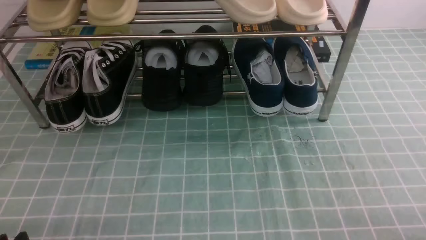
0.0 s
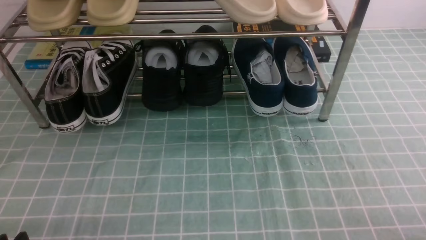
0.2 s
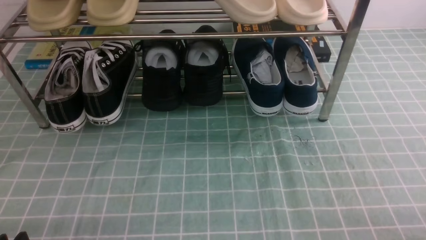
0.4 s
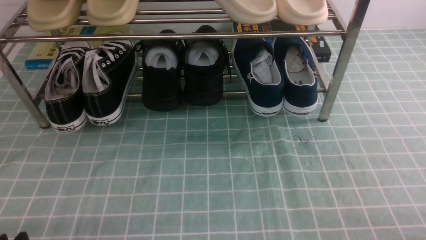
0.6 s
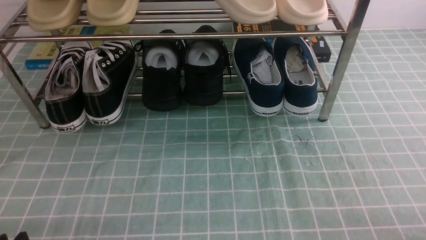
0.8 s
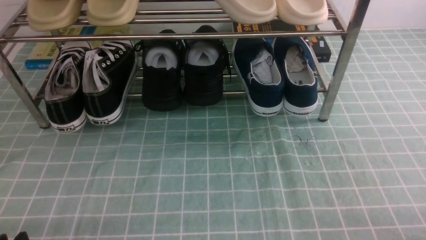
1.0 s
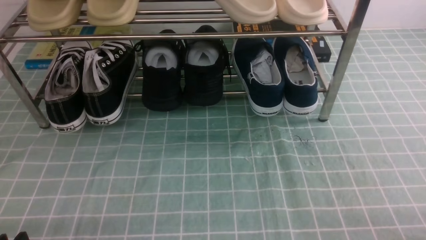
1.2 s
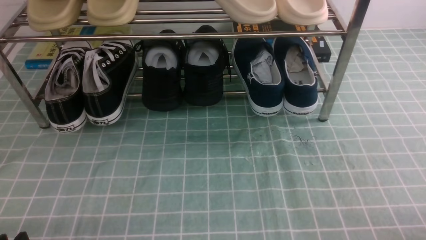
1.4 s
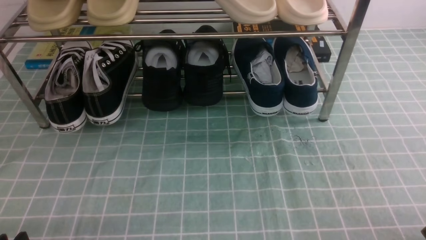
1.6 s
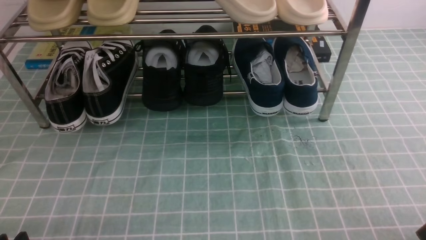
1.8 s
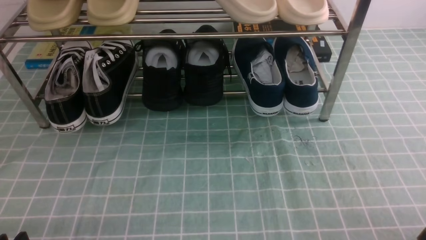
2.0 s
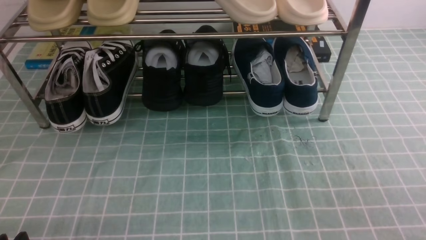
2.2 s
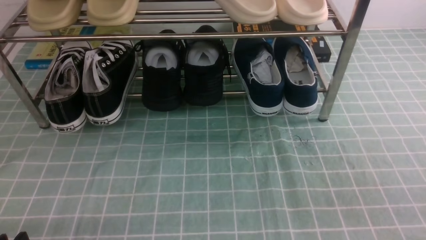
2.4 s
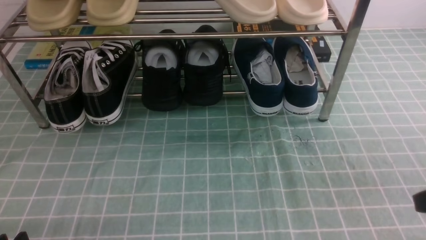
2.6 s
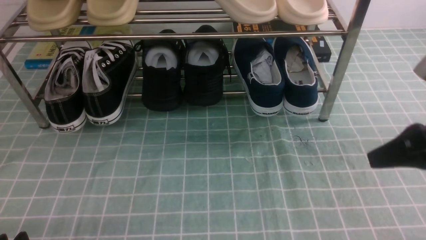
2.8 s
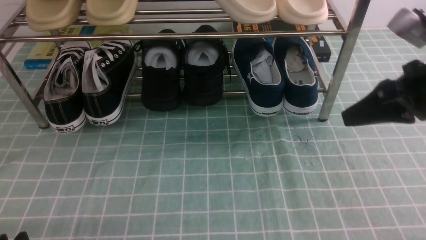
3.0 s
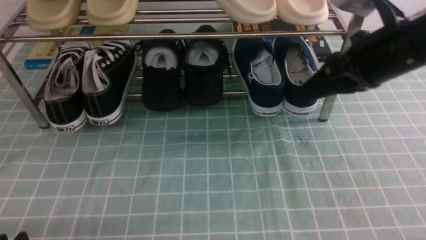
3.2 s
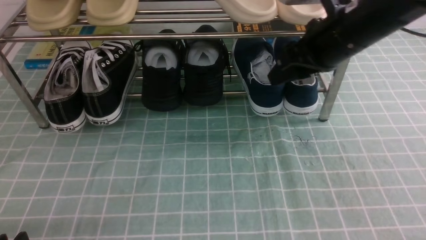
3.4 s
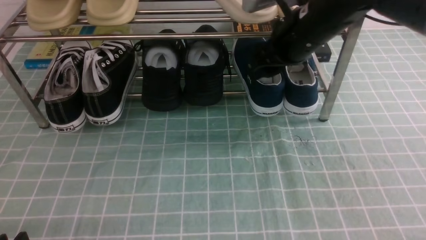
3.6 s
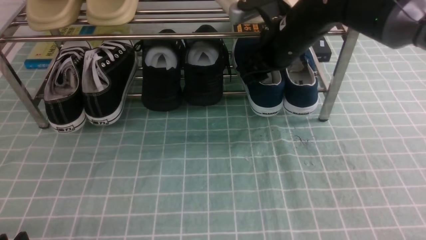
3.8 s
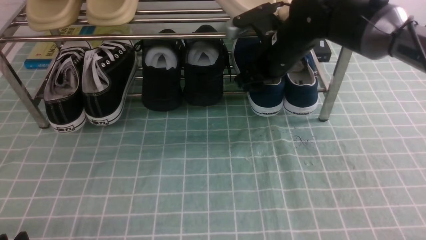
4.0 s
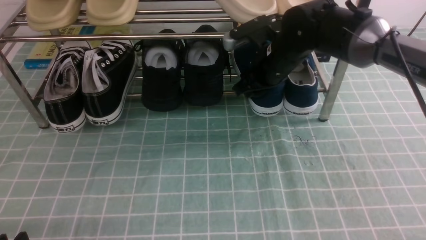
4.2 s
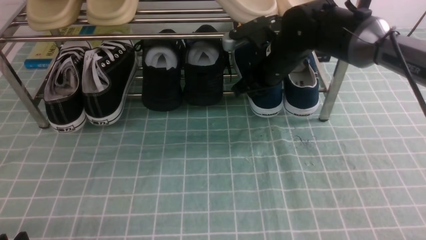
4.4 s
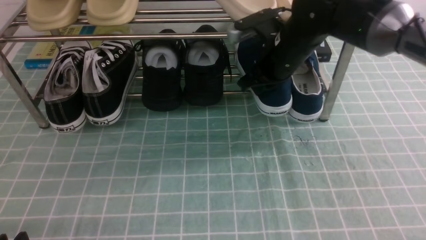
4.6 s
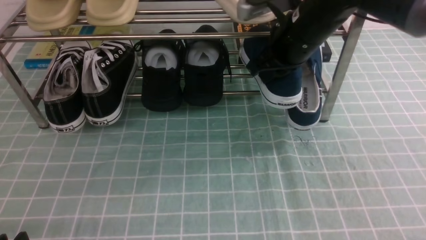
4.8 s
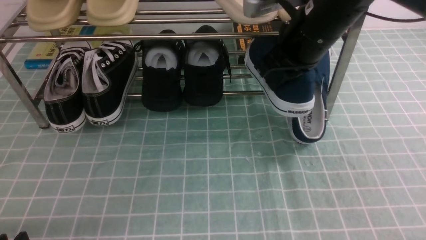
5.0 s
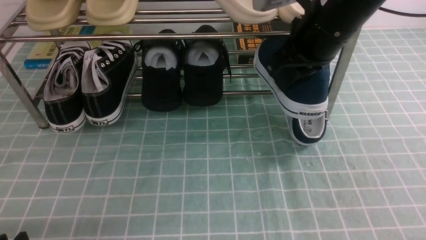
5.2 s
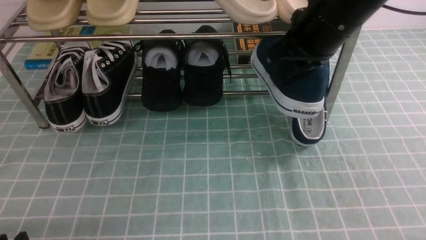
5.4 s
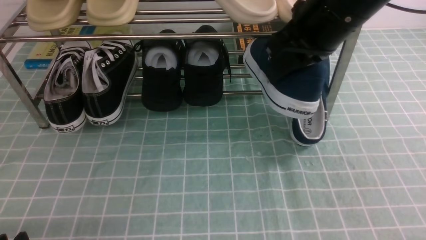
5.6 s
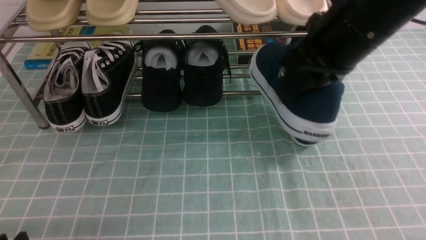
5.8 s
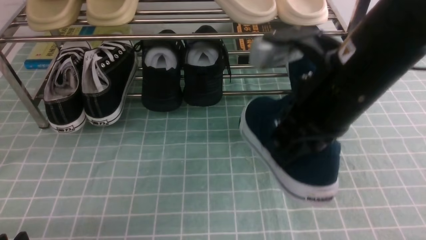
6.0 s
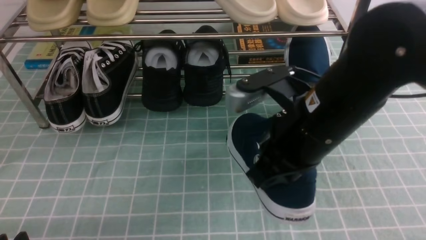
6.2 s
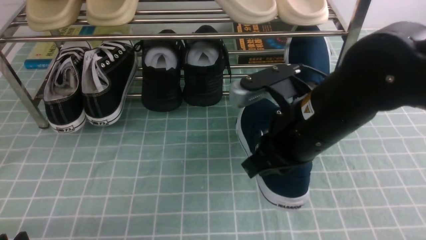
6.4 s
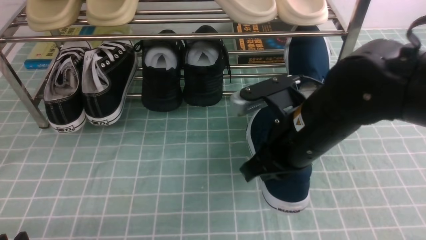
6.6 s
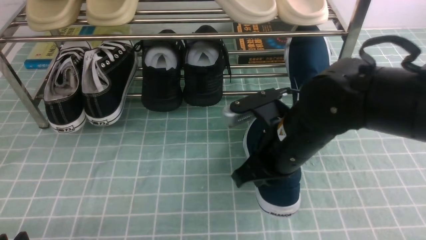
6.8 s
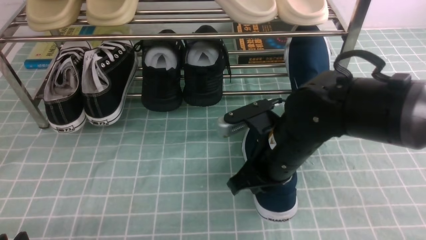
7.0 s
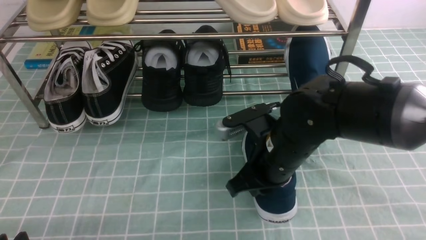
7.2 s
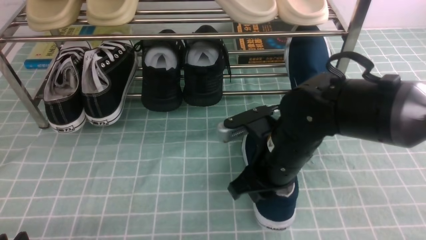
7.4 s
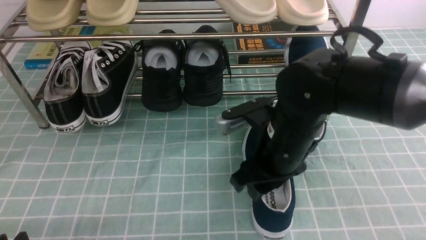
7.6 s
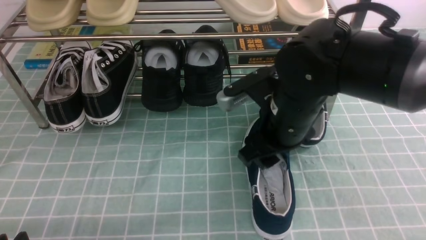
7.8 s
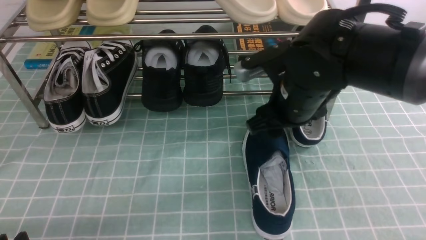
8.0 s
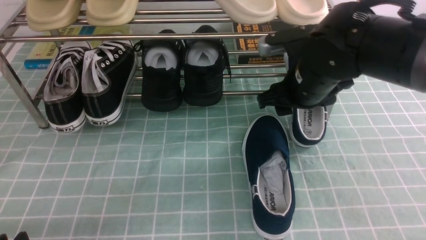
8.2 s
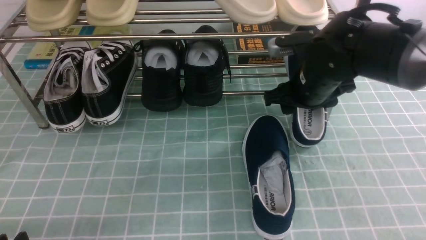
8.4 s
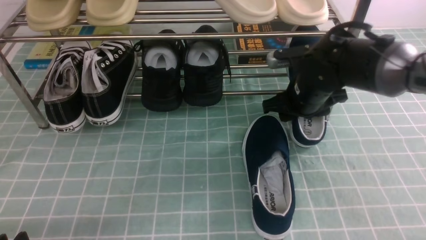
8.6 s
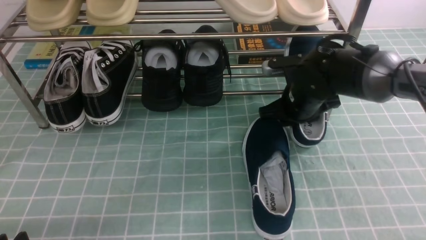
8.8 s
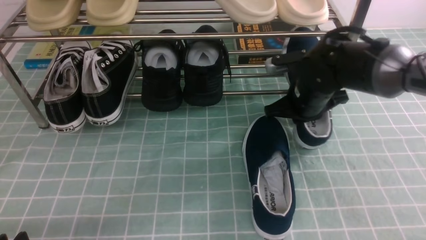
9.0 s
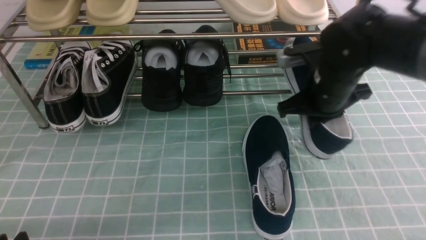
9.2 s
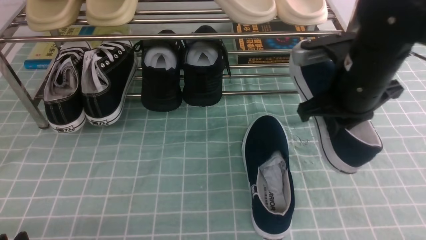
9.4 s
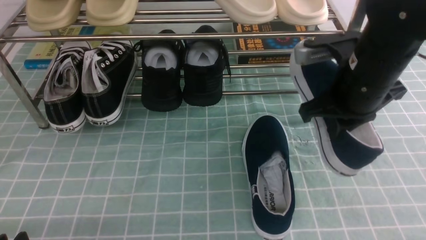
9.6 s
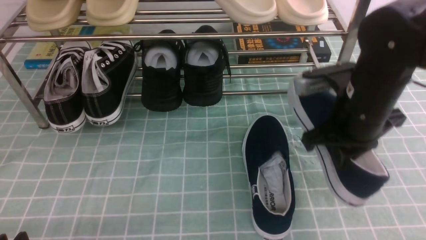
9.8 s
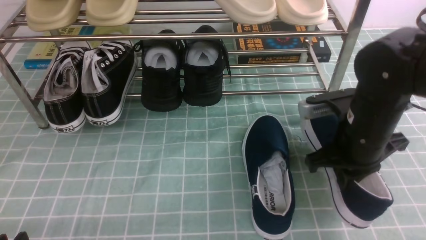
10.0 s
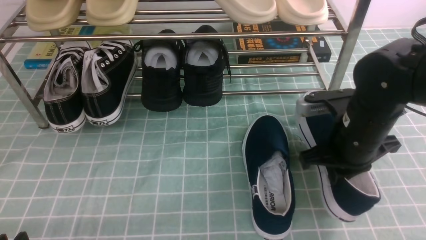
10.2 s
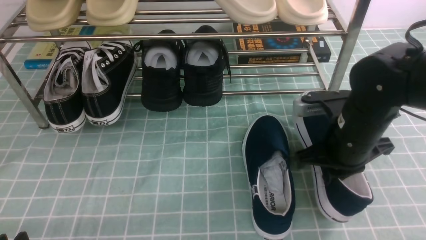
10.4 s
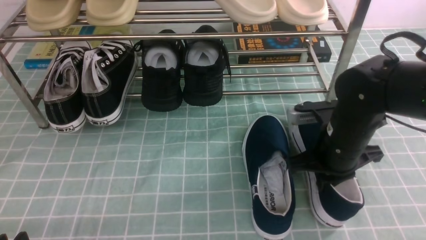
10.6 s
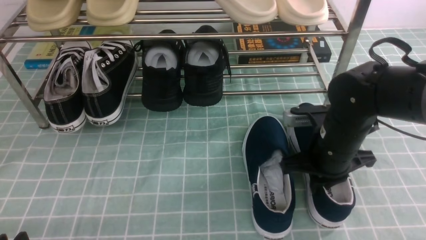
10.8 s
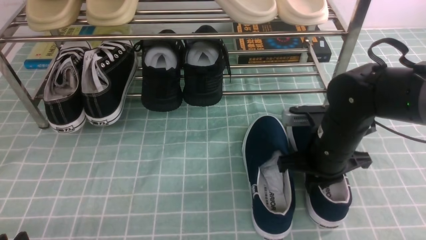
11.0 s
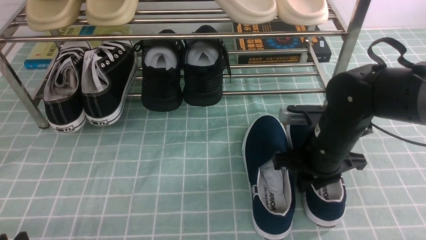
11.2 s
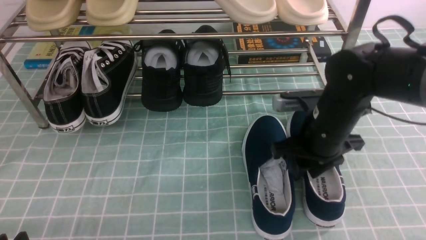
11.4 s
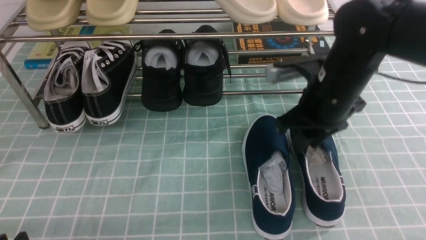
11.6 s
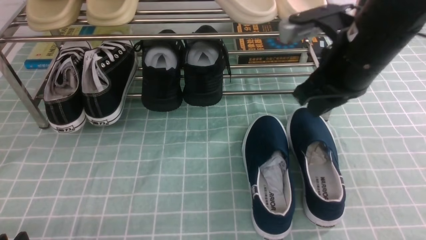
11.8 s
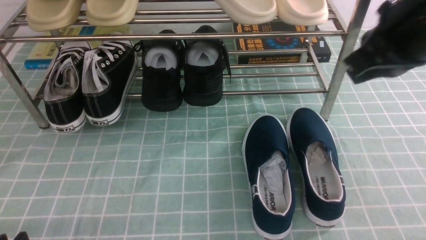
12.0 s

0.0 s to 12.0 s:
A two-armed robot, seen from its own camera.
Step, 0.0 to 4.2 s: use the right arm to clamp a shoe on the right side of the shoe rack.
Step, 4.4 to 7.6 s: use the right arm to take out the clamped shoe from the shoe rack and put it down.
Step, 7.8 to 8.8 s: use the right arm to clamp a shoe on the right side of the shoe rack.
Step, 9.0 to 11.6 s: use the right arm to take out the clamped shoe from the shoe rack and put it down.
1.6 to 3.0 s: The right gripper goes about 25 cm forward and upward.
3.0 to 4.4 s: The right gripper is displaced forward, to the left and downward by approximately 20 cm, and opens, then closes again.
4.4 to 6.0 s: The right gripper is displaced backward and upward by roughly 20 cm.
6.0 to 7.6 s: The right gripper goes about 10 cm downward, and opens.
7.6 to 9.0 s: The right gripper is displaced forward and to the right by about 10 cm, and closes.
9.0 to 10.4 s: The right gripper goes some 10 cm backward.
10.4 to 12.0 s: The right gripper travels upward by roughly 20 cm, and opens, then closes again.

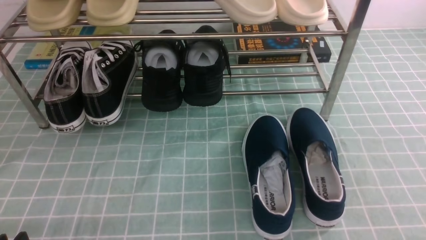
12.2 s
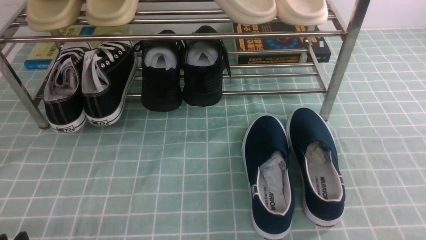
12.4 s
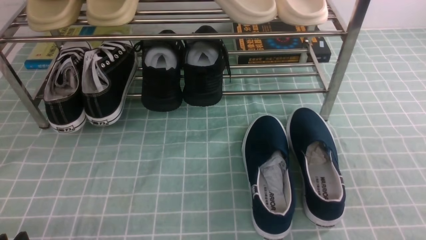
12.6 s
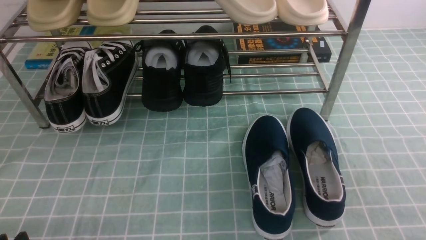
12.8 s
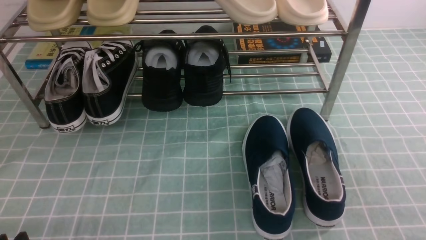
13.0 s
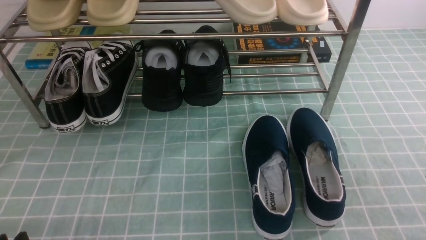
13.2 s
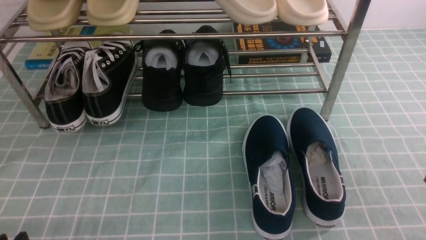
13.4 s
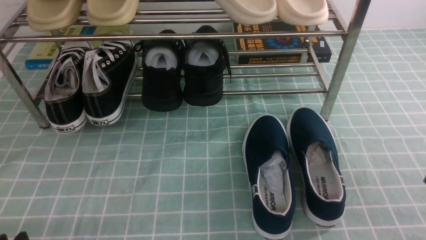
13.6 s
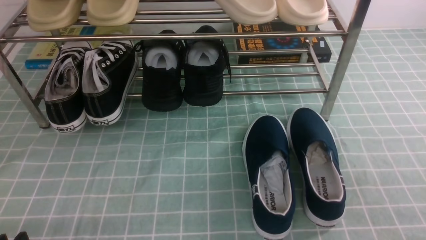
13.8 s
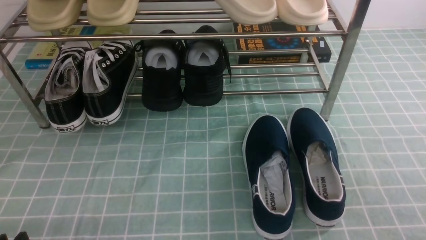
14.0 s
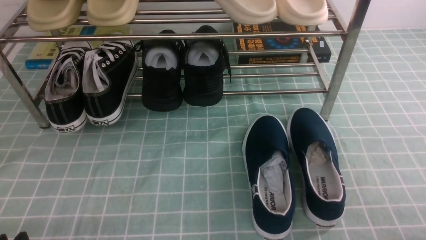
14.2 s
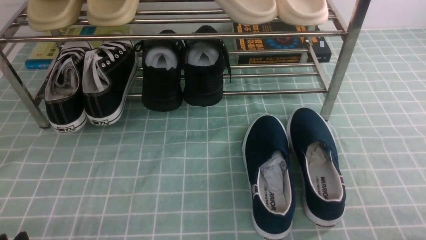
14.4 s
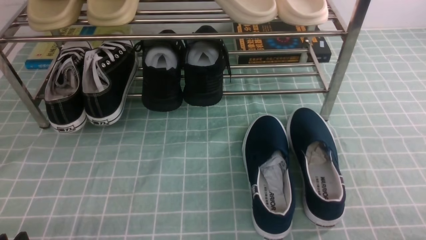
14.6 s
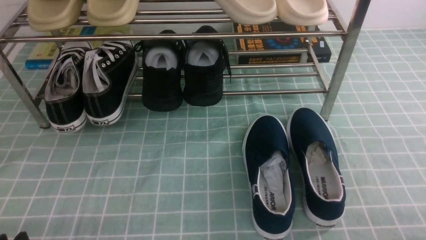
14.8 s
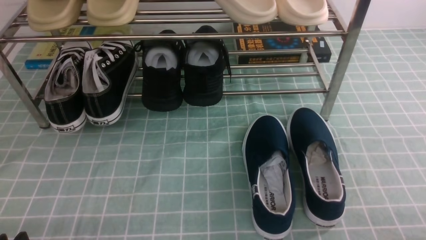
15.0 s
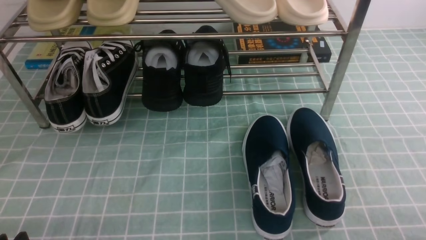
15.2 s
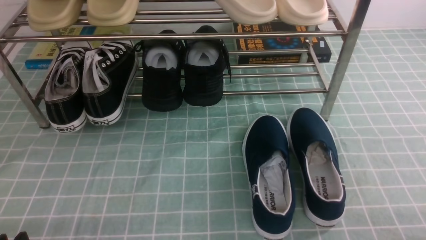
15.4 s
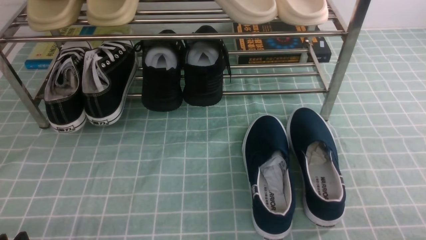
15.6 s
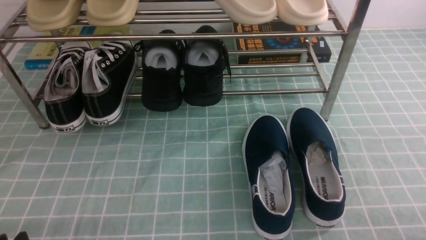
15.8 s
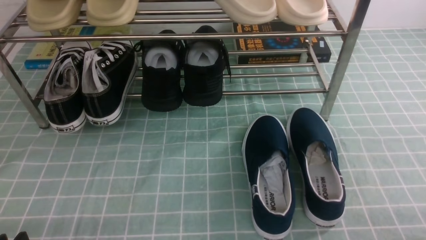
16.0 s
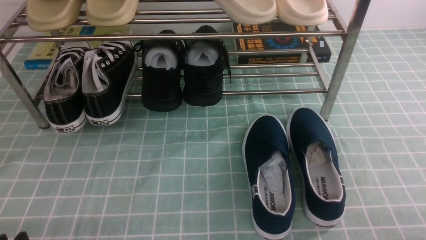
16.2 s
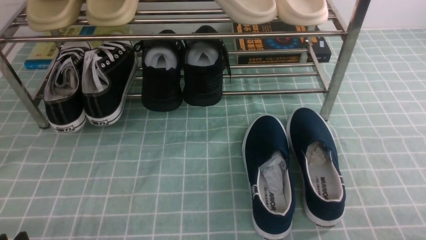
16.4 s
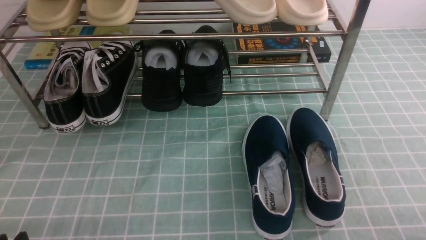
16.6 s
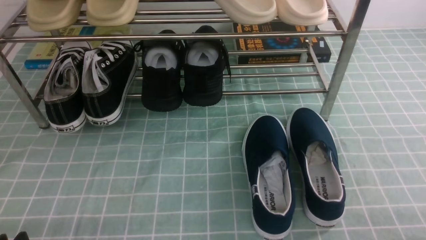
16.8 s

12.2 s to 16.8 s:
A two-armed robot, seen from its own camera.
12.2 to 13.8 s: The right gripper is displaced downward by some 20 cm.
15.2 to 16.8 s: The two grippers keep their place.
